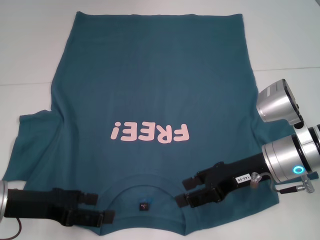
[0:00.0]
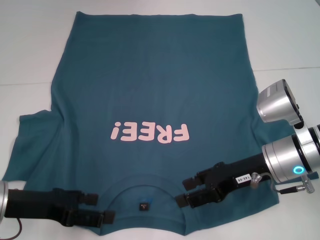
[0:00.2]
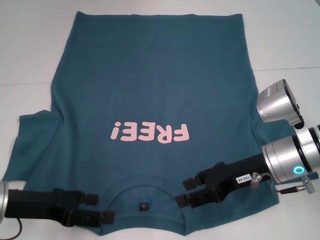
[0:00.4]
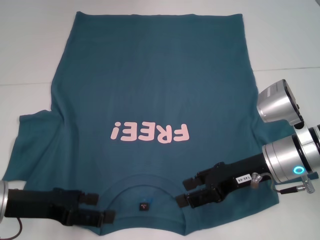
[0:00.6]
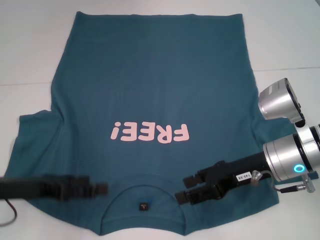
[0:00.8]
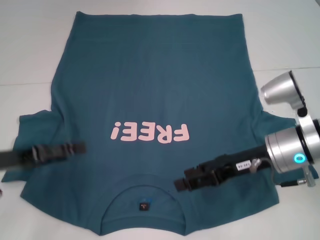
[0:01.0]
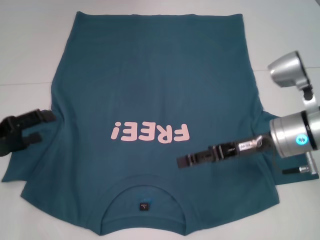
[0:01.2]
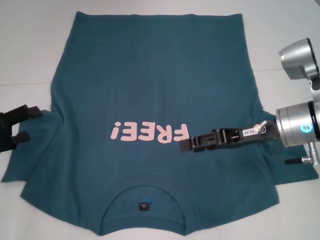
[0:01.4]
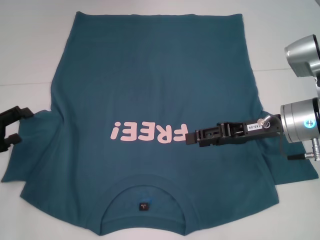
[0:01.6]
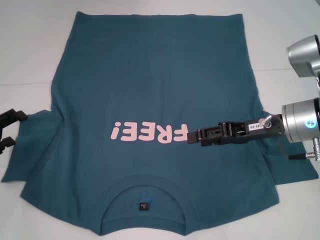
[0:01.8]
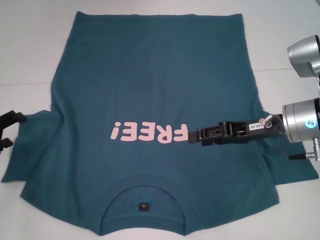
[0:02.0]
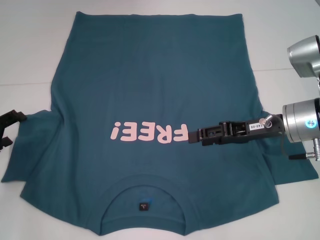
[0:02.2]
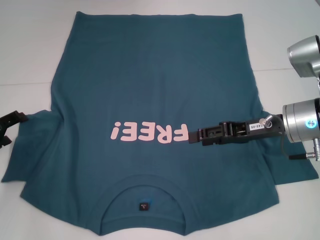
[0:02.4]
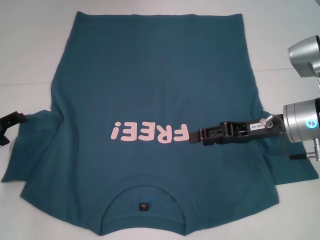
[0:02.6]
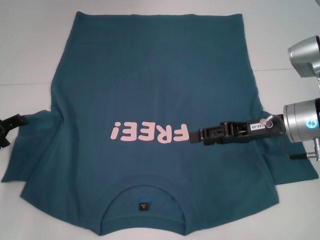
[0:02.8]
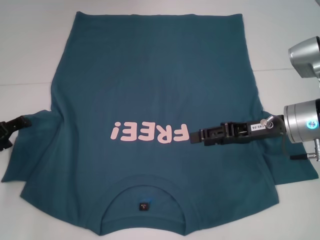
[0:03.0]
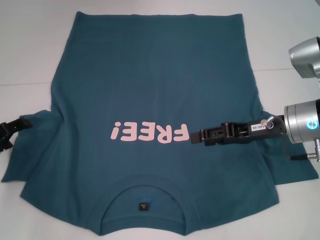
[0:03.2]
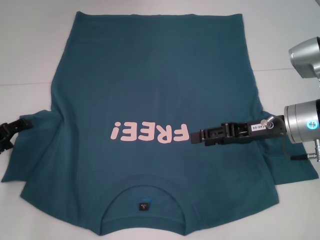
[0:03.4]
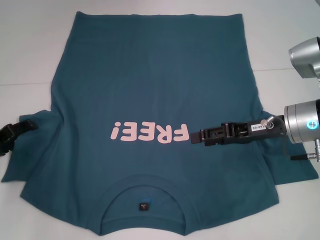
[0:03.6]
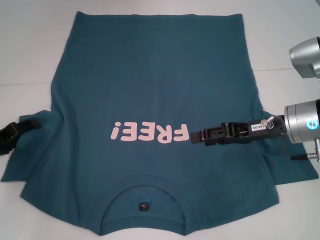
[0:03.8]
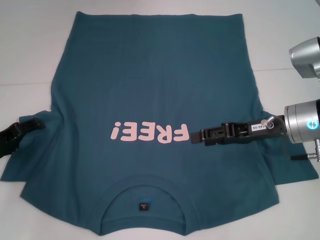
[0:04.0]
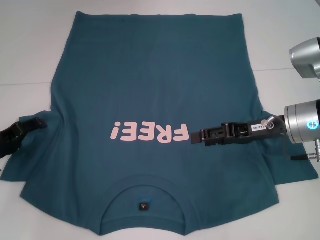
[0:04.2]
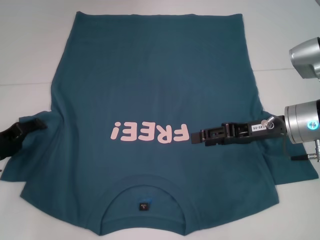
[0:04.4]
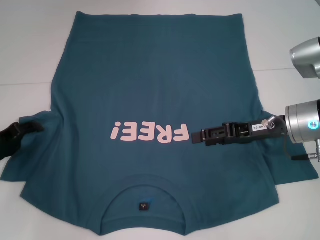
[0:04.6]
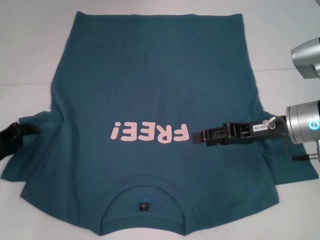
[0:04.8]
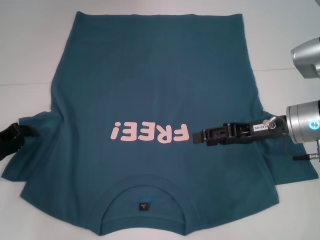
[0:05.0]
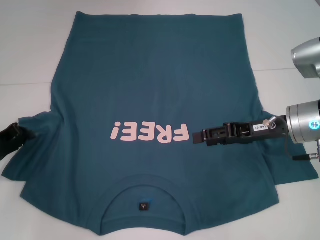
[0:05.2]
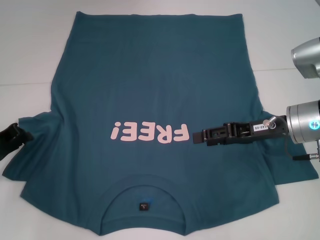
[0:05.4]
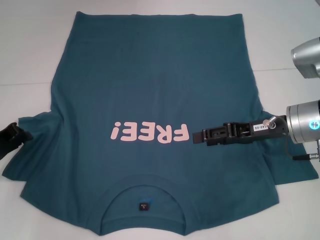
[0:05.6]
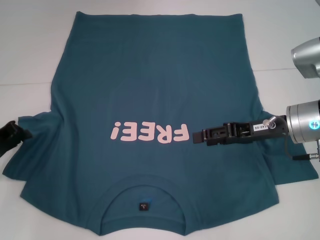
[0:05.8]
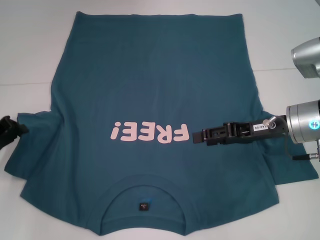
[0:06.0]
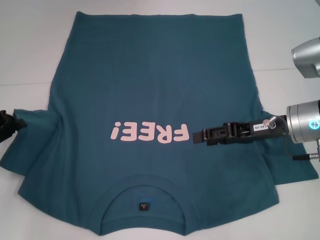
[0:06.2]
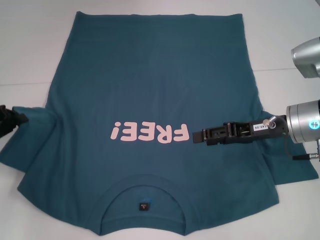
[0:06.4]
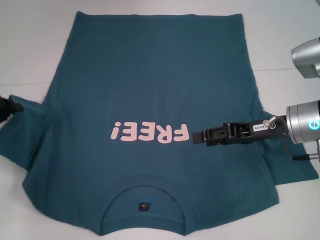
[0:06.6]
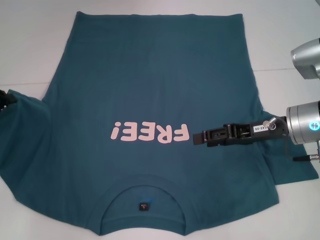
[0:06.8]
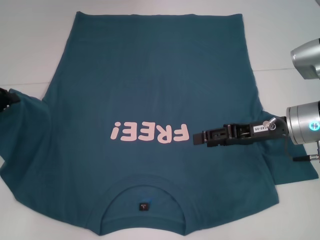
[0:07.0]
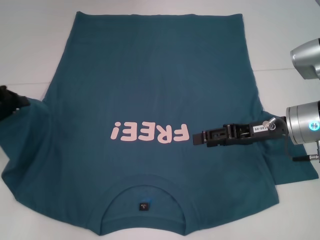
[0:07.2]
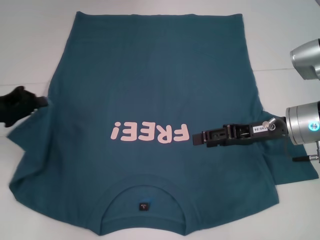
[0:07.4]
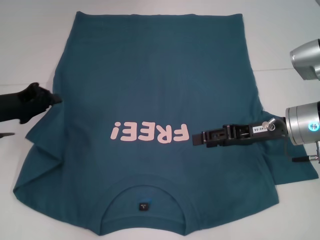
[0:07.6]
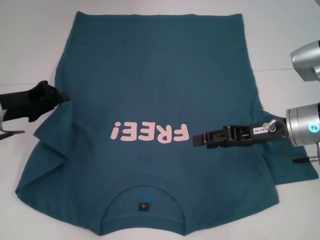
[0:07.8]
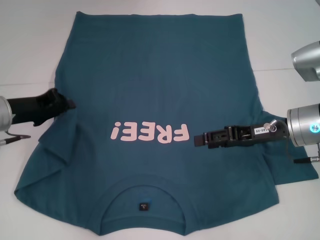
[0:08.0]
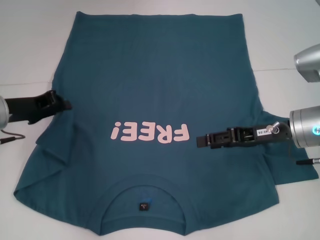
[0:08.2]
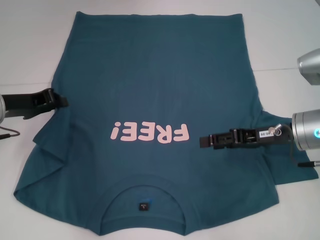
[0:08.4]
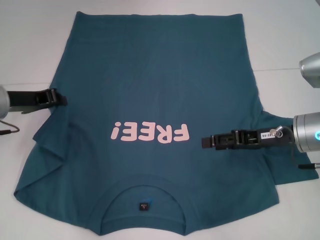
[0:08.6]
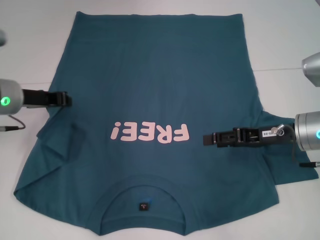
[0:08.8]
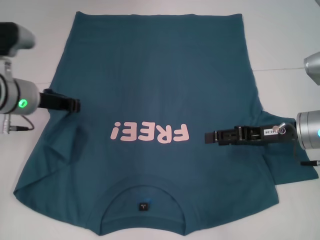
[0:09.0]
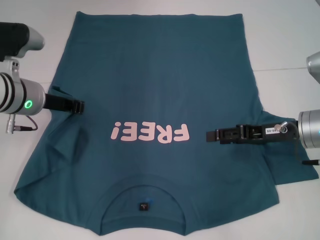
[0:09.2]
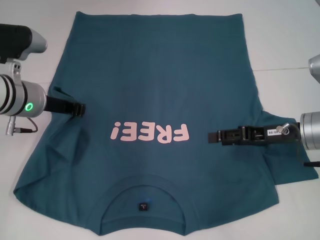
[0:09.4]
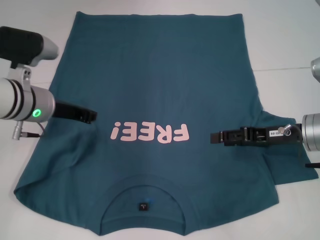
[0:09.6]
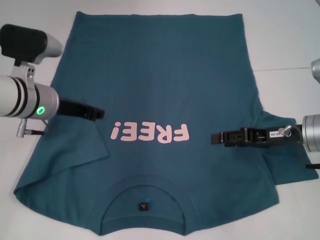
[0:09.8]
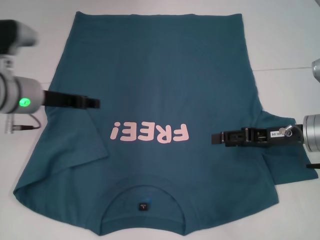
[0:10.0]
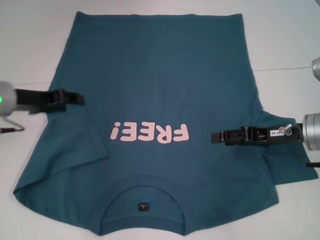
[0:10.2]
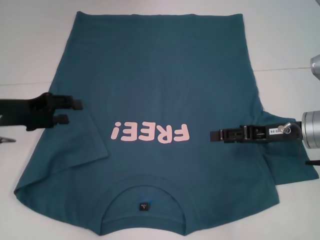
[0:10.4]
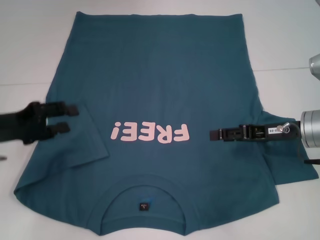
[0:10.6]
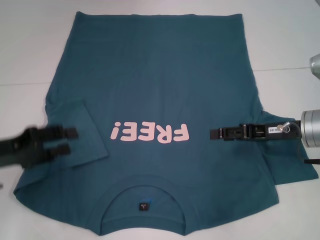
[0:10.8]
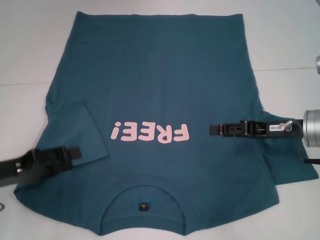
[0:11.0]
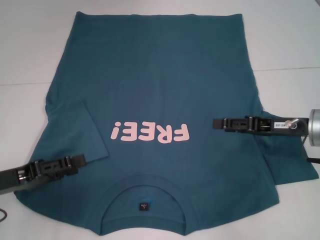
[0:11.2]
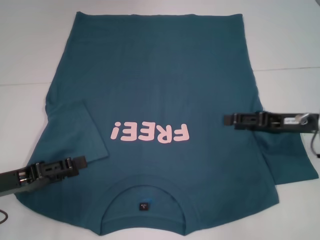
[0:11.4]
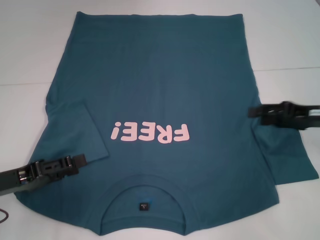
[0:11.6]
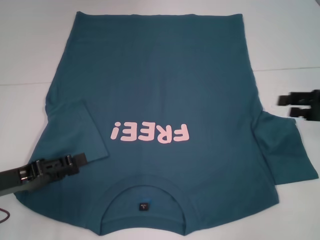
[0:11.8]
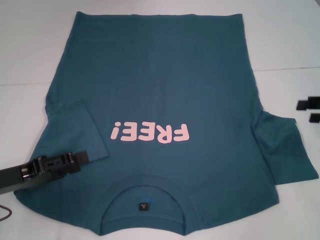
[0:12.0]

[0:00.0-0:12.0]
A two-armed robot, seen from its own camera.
Step, 0:00.0 to 0:09.6: Fold the bottom left sleeve with your left hand.
0:00.0 to 0:01.6: The left gripper goes about 10 cm to the left; the right gripper shifts by about 5 cm.
0:01.6 to 0:04.4: The grippers stay close to where they were, moving slightly.
0:04.4 to 0:06.0: The left gripper closes up.
0:06.0 to 0:07.6: The left gripper changes place by about 5 cm.
0:07.6 to 0:09.0: The left gripper heads to the right, covering roughly 5 cm.
0:09.0 to 0:10.4: The left gripper is displaced to the left by about 5 cm, and opens.
0:10.4 to 0:12.0: The right gripper is displaced to the right by about 10 cm. The left gripper is displaced backward and downward by roughly 10 cm.

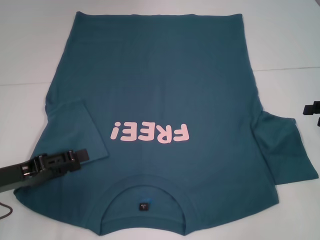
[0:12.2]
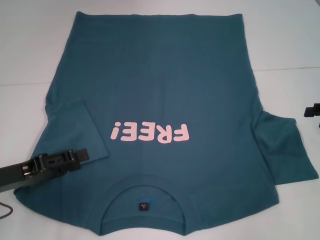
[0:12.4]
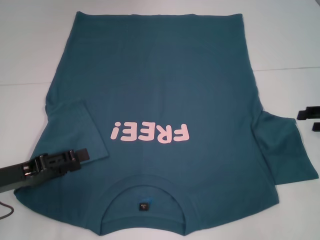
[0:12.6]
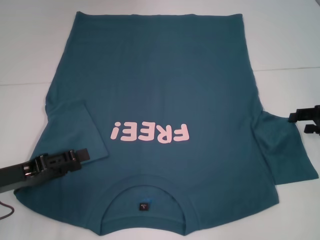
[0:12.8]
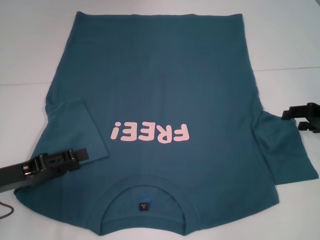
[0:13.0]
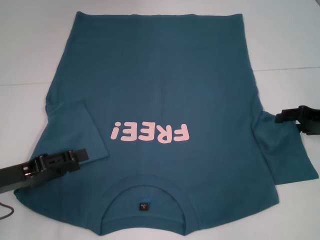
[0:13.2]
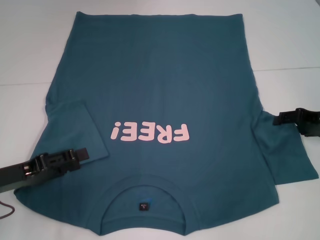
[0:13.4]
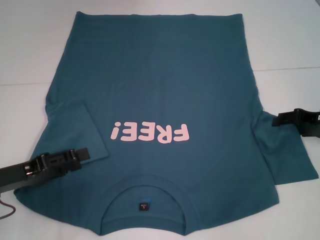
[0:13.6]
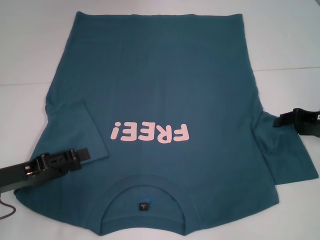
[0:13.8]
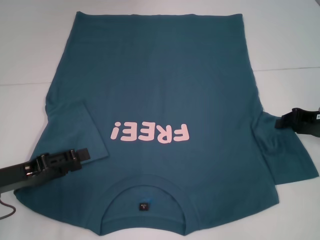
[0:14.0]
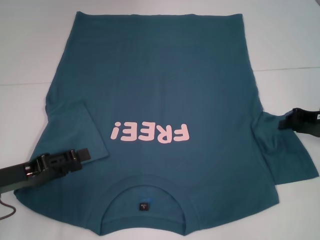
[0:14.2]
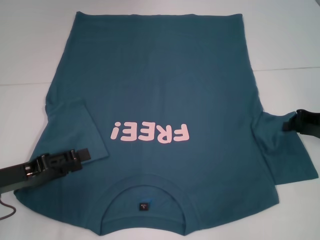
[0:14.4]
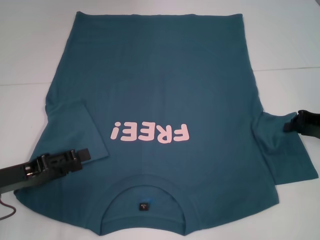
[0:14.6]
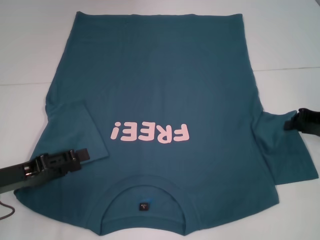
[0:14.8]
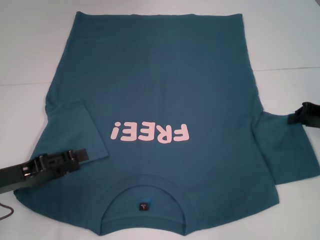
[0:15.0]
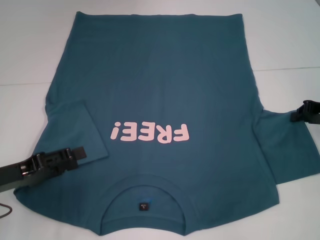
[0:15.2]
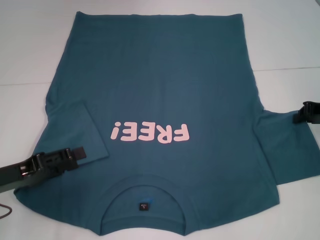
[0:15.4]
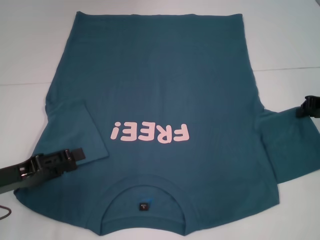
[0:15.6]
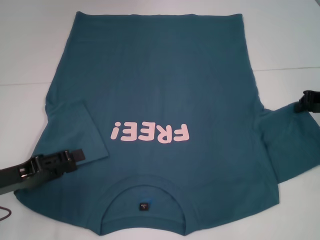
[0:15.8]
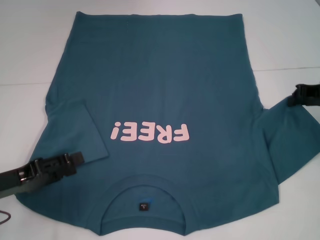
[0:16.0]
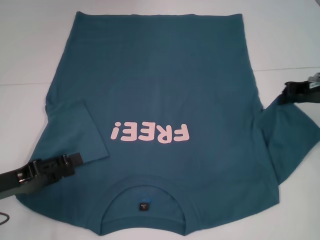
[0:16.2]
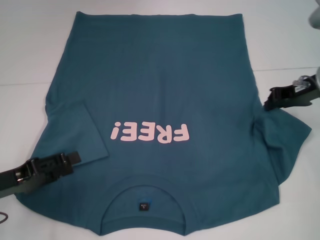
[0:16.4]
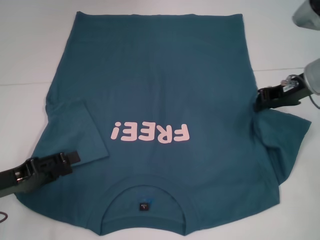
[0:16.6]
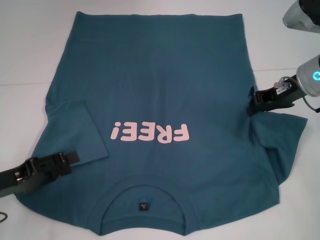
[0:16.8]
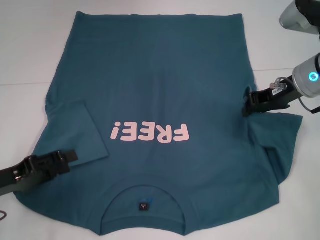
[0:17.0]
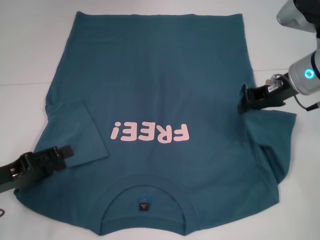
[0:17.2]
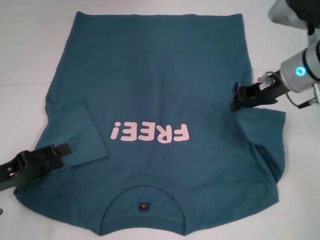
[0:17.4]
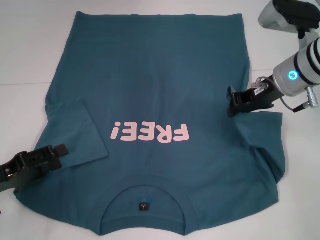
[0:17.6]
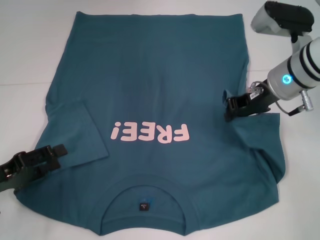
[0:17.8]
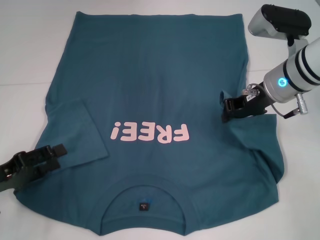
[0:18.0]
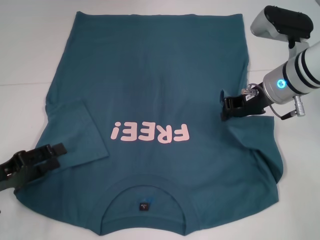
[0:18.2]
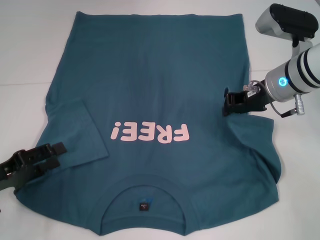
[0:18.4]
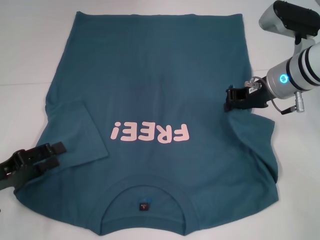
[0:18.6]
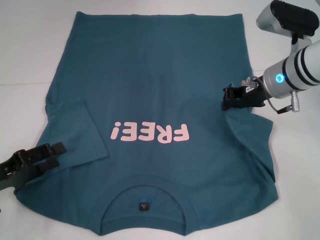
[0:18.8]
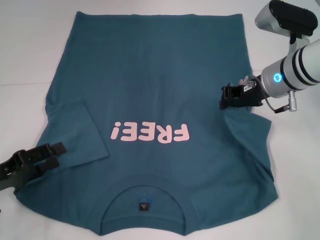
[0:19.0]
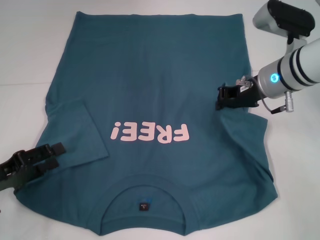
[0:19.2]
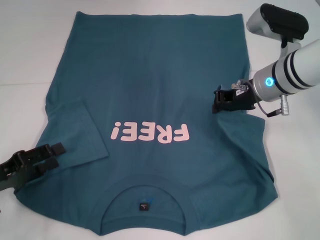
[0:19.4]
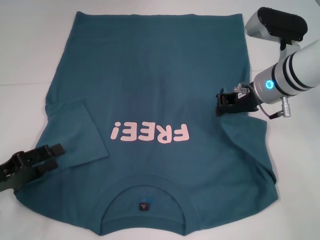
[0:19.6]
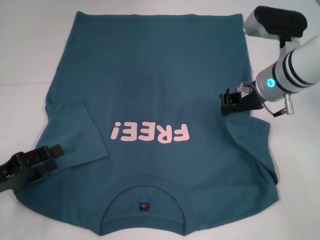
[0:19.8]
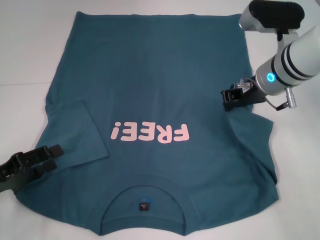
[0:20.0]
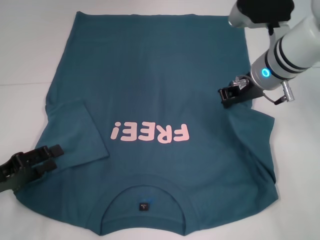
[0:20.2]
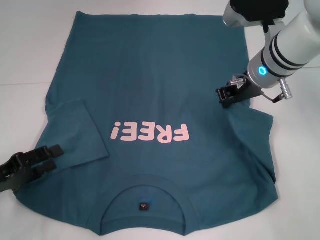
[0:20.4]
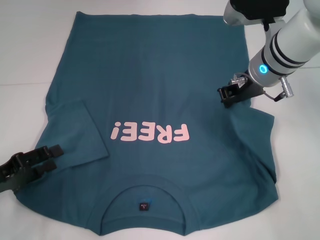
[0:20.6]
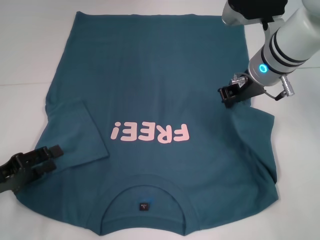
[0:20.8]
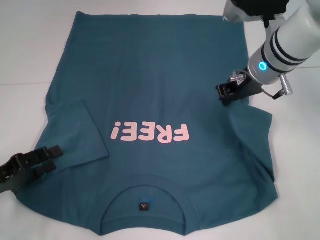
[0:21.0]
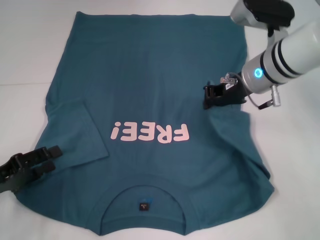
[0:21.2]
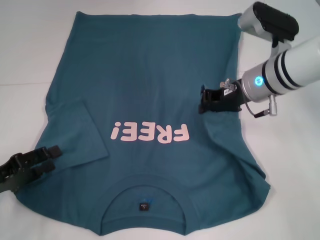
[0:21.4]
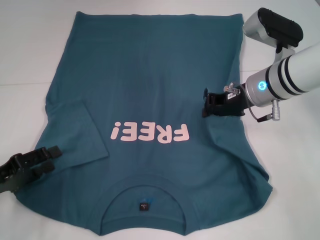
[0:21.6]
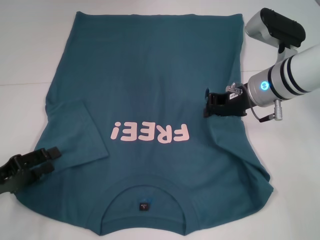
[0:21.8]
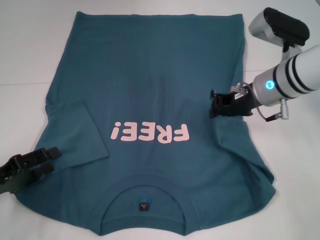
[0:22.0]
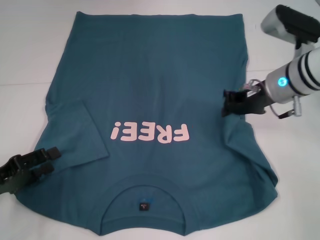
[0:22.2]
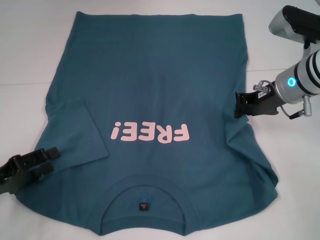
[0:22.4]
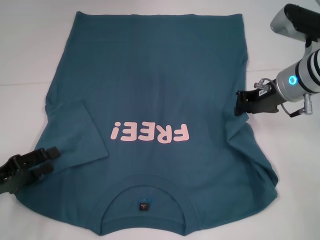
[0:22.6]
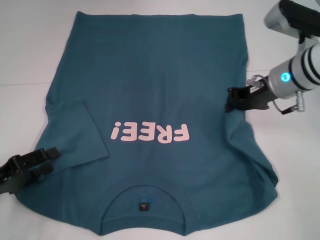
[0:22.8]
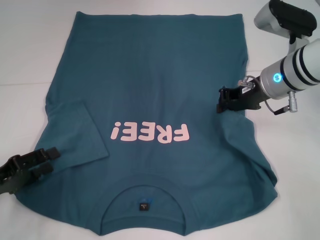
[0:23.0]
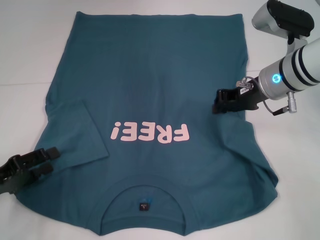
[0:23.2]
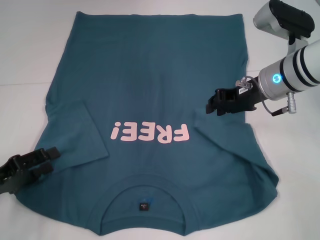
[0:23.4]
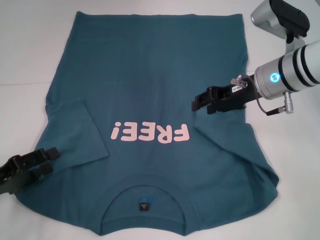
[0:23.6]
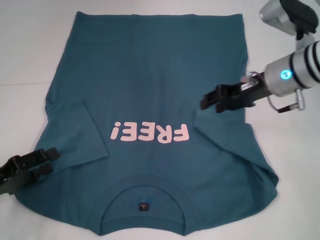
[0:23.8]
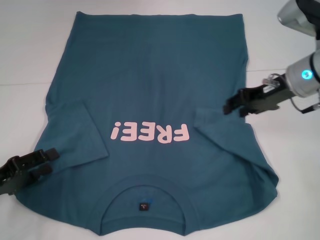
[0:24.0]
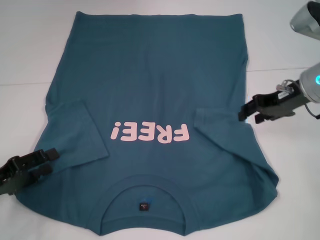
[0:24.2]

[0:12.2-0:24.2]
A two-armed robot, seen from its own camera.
0:12.2 to 0:13.8: The right gripper moves to the left, roughly 5 cm.
0:13.8 to 0:15.2: The right gripper closes.
0:15.2 to 0:16.6: The right gripper shifts approximately 10 cm to the left.
0:16.6 to 0:18.2: The right gripper moves to the left, roughly 5 cm.
0:18.2 to 0:21.2: There are only small adjustments of the grippers.
0:21.2 to 0:22.6: The right gripper heads to the right, covering about 5 cm.
0:22.6 to 0:24.2: The right gripper opens.
